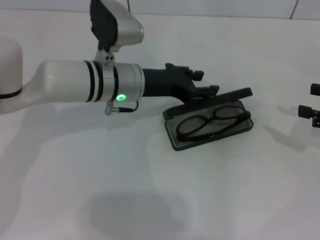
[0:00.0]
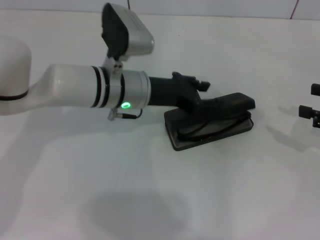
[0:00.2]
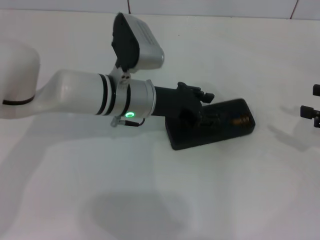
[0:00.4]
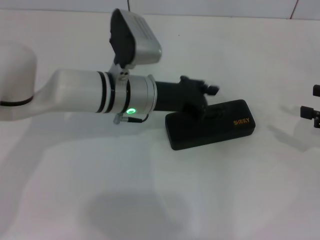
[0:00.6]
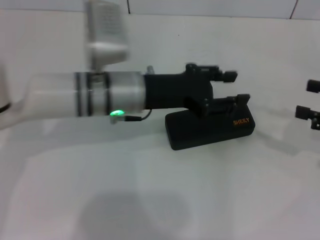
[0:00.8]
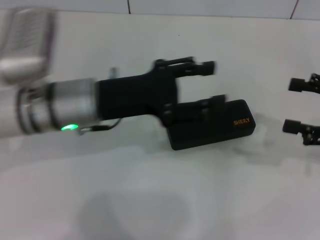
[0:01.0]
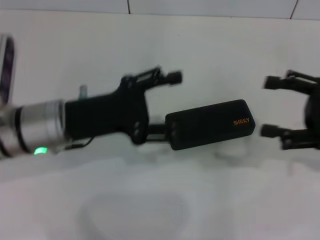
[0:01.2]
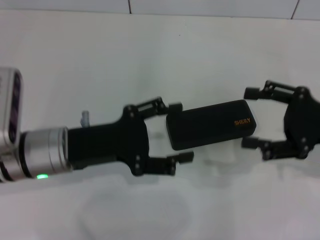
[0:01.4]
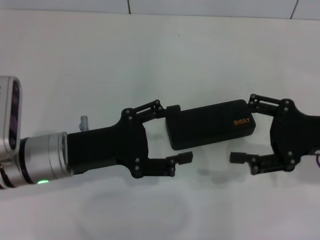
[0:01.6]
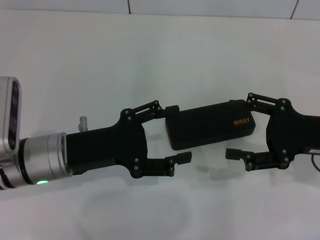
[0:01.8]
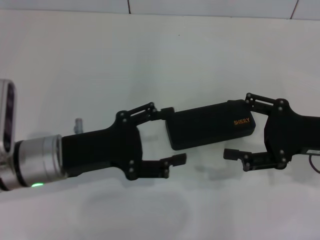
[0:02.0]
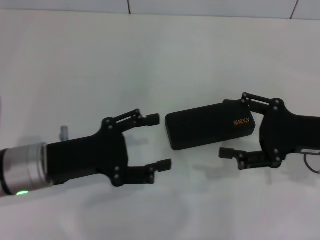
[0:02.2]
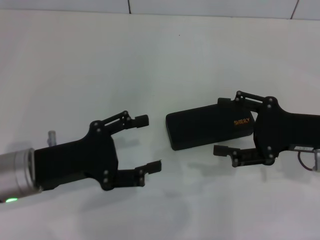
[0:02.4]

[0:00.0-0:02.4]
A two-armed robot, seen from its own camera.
0.0 to 1.2 s: The left gripper shifts some 15 cm backward and to the left, while the right gripper heads to the left, covering roughly 5 cm.
1.2 to 2.4 s: The right gripper travels to the left by some 5 cm, while the left gripper shifts by about 5 cm.

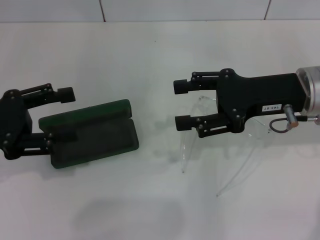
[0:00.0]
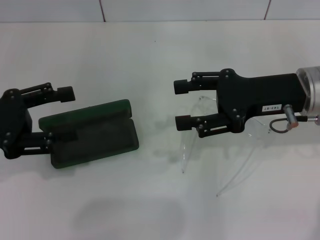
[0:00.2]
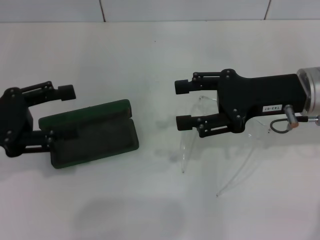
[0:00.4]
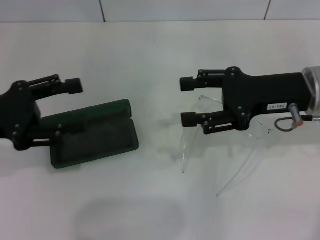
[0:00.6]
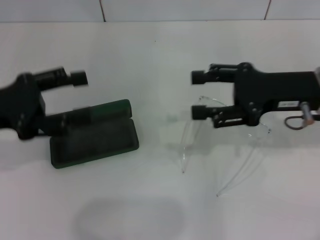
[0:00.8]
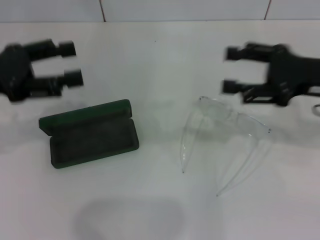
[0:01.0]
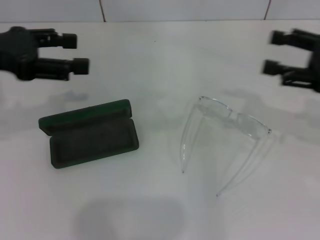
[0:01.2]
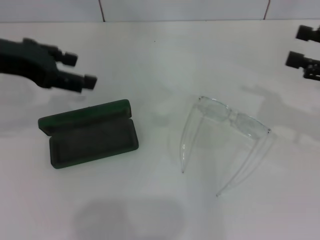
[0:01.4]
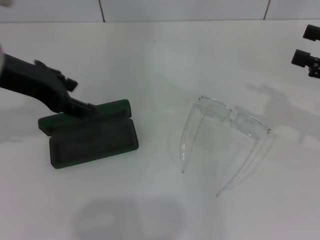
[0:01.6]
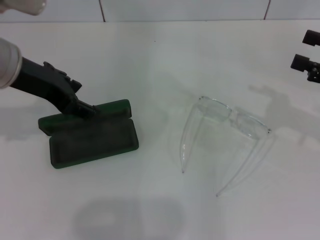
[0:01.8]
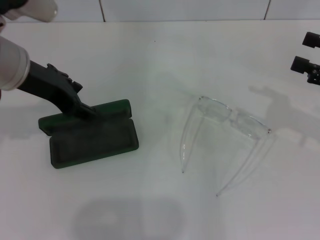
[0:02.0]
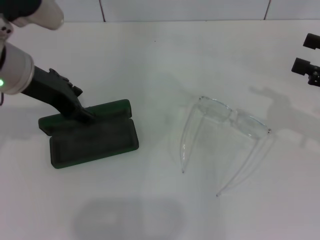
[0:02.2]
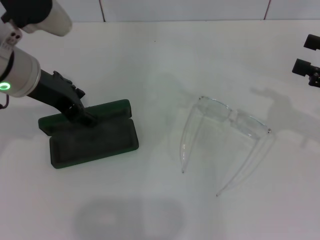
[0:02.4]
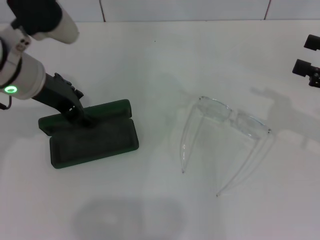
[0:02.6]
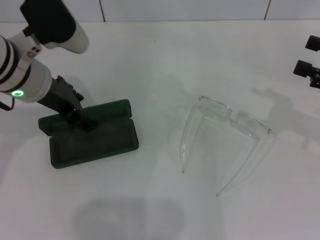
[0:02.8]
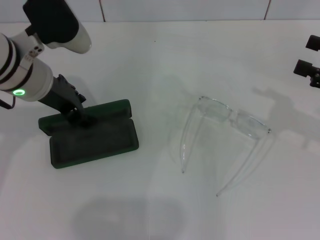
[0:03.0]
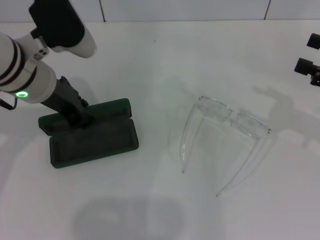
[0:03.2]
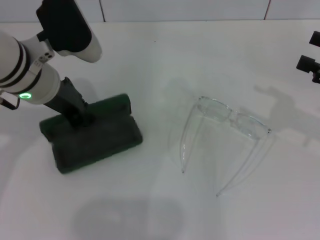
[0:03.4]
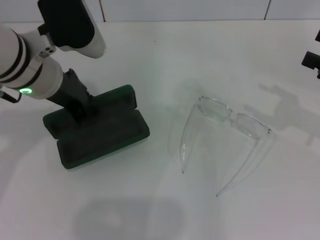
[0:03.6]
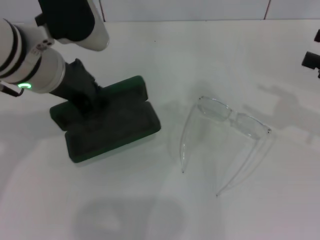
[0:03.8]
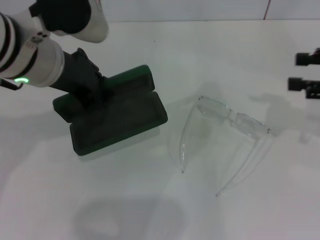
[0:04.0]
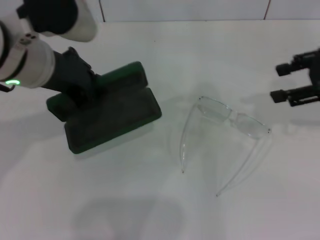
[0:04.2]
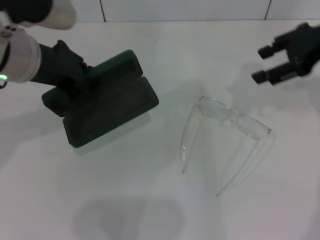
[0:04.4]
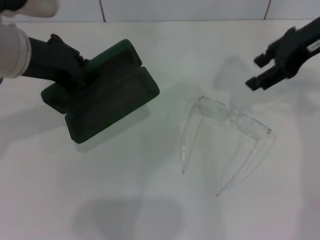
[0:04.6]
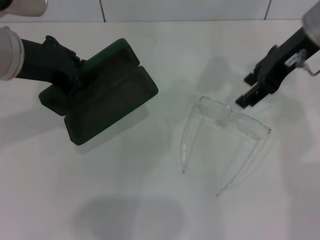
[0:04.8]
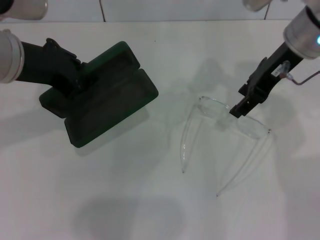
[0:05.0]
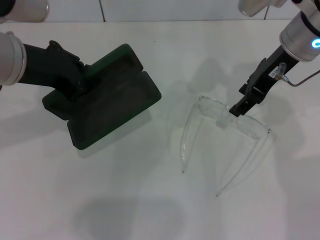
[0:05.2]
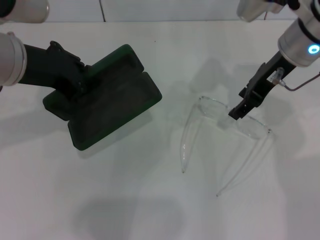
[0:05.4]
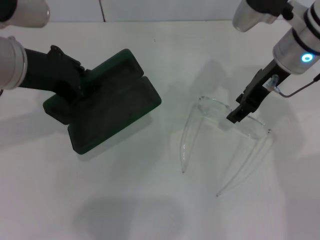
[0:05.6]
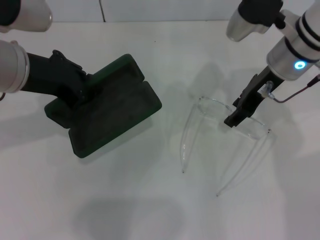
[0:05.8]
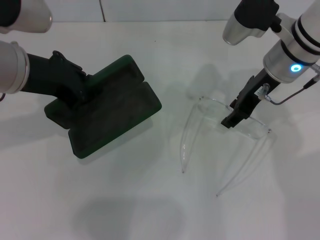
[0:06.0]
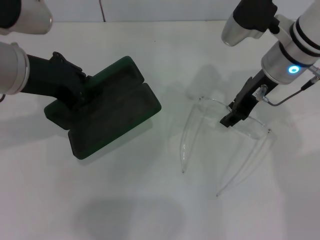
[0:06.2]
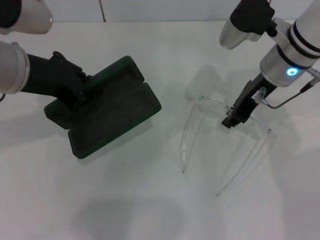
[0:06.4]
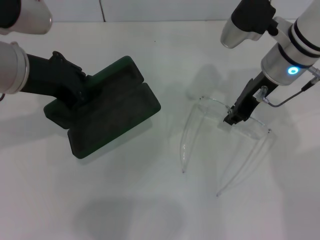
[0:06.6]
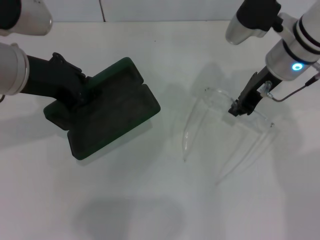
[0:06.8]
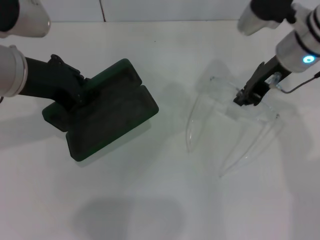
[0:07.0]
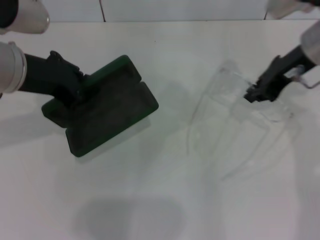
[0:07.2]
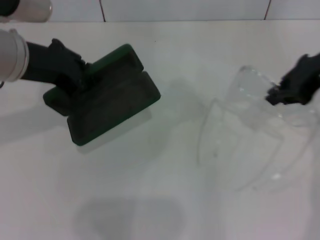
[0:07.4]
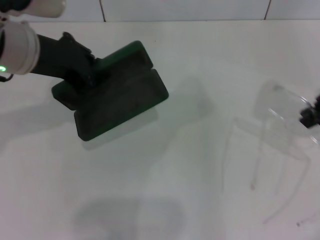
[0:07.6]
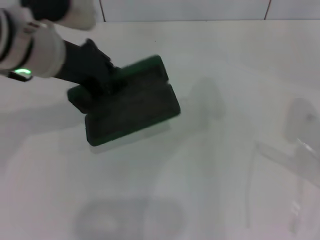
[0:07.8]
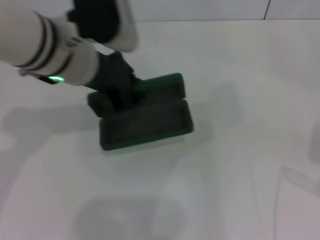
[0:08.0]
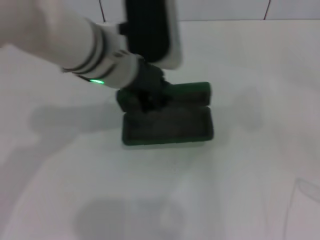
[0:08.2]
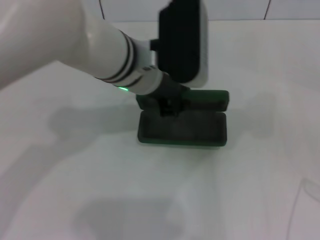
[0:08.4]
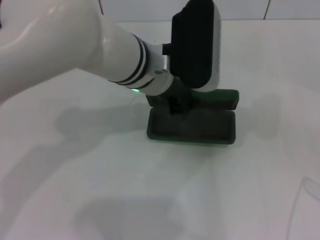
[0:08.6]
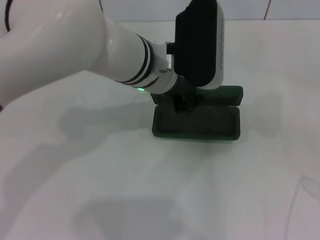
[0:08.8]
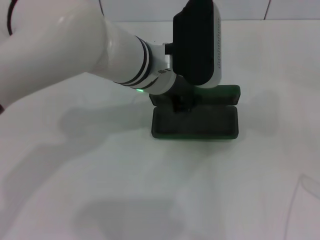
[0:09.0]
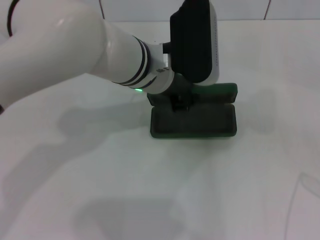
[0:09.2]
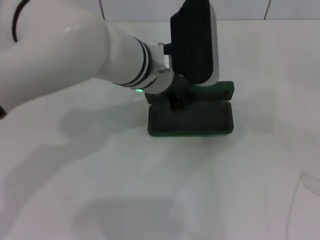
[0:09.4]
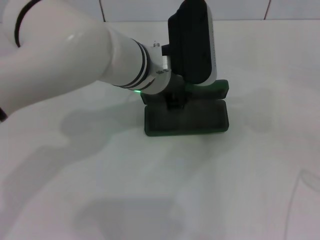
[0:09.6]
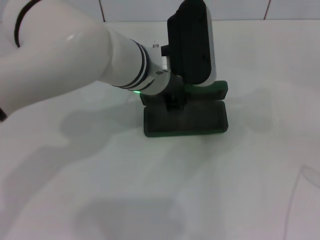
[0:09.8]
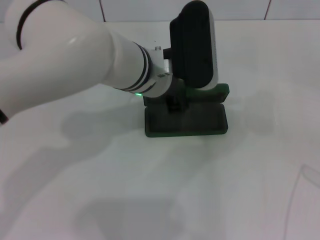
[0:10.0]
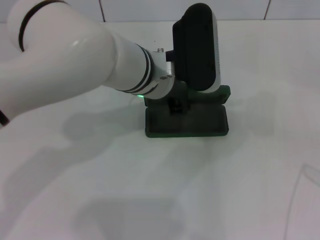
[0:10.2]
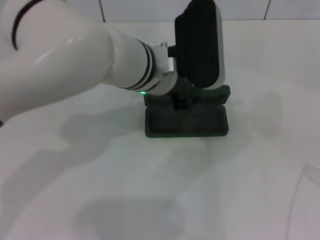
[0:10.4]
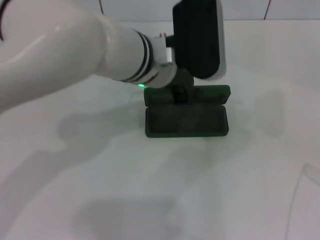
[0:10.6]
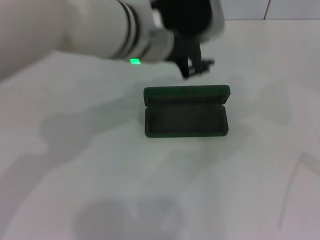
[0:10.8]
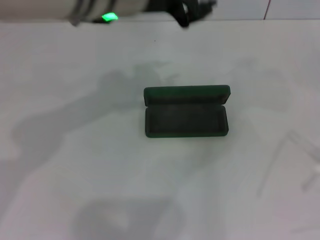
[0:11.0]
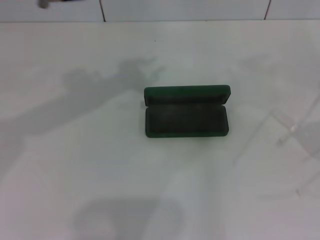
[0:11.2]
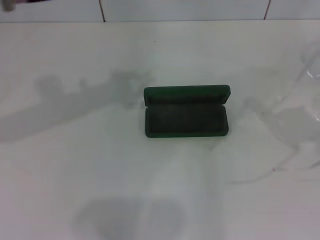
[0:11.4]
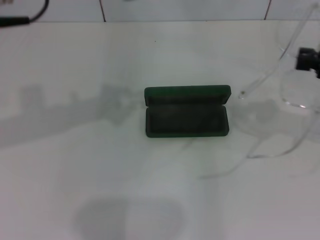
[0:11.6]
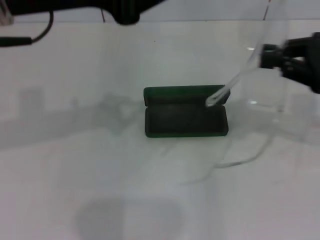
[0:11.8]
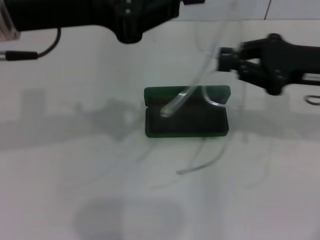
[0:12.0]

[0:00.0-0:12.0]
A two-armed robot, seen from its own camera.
Step, 0.0 to 3.0 s: Grab the glasses case with your left hand.
Step, 3.4 to 6.4 s: Grab the eyeglass frame with your right hand.
Step, 6.8 to 10.2 s: Place the glasses case in the center of the table with your left hand.
0.0 to 1.6 s: The right gripper is displaced to the right by about 15 cm. The left gripper shifts some 15 cm to the right, upward and forward.
1.6 to 3.0 s: The left gripper is displaced downward by roughly 5 cm.
3.0 to 4.4 s: The right gripper shifts approximately 15 cm upward, to the left and forward. The left gripper goes some 5 cm upward, and closes up.
4.4 to 6.0 s: The right gripper moves to the left and downward, about 15 cm.
6.0 to 7.6 s: The right gripper heads to the right, backward and upward, covering some 15 cm, and closes its fingers.
7.6 to 9.0 s: The right gripper travels to the right, backward and downward by roughly 15 cm. The left gripper is displaced to the right and downward by about 15 cm.
9.0 to 10.4 s: The grippers move only a little.
10.4 to 12.0 s: The left gripper goes approximately 20 cm to the left, upward and backward, while the right gripper moves to the left and forward, approximately 20 cm.

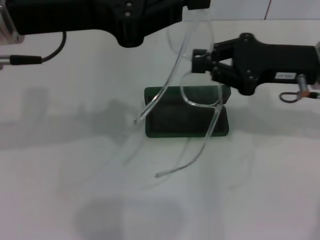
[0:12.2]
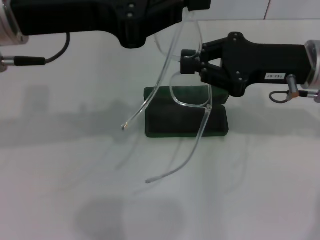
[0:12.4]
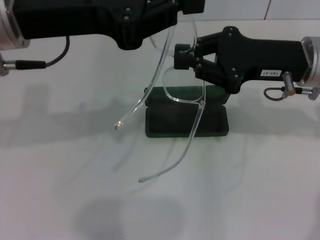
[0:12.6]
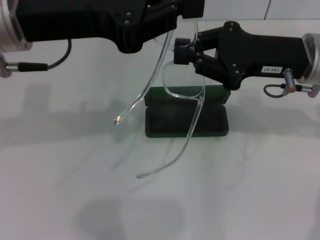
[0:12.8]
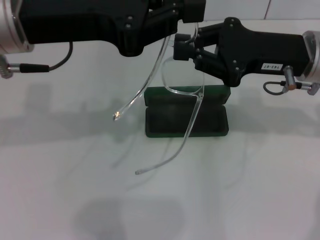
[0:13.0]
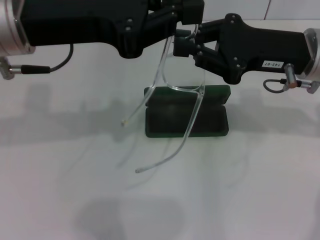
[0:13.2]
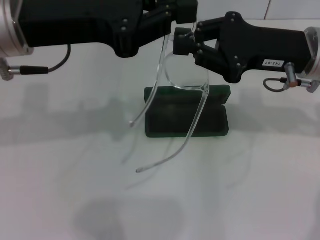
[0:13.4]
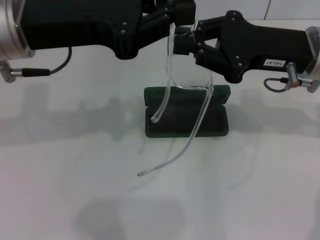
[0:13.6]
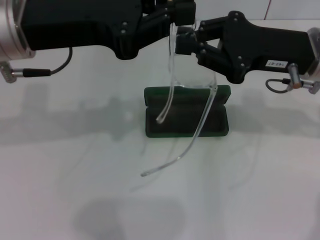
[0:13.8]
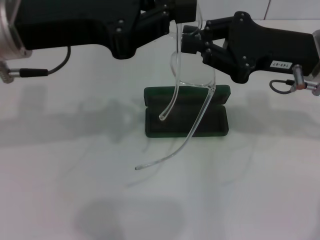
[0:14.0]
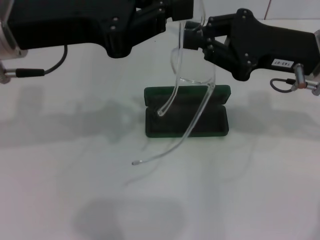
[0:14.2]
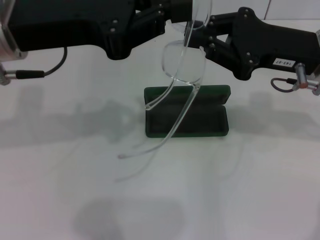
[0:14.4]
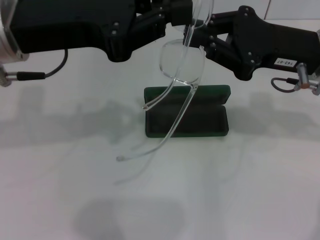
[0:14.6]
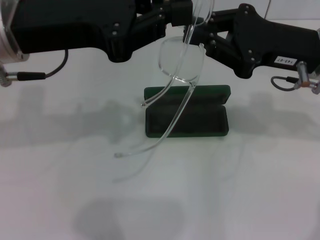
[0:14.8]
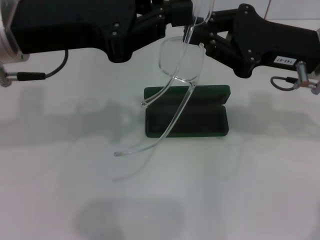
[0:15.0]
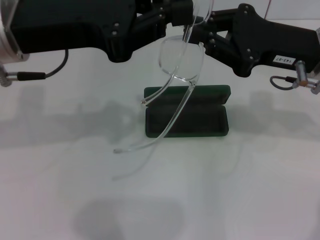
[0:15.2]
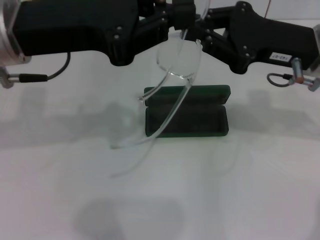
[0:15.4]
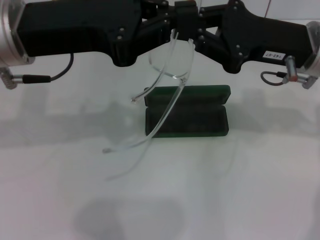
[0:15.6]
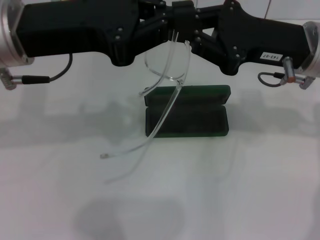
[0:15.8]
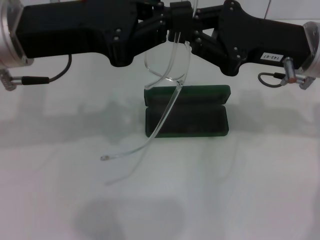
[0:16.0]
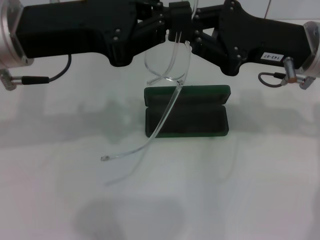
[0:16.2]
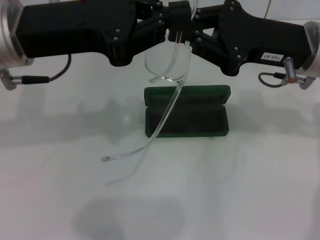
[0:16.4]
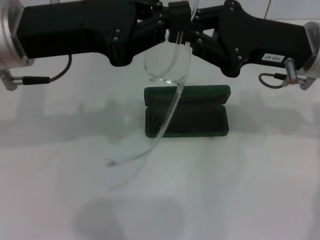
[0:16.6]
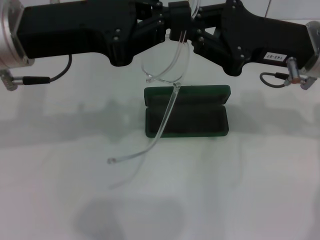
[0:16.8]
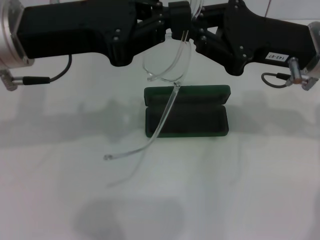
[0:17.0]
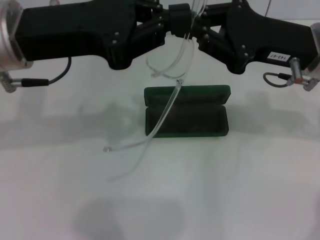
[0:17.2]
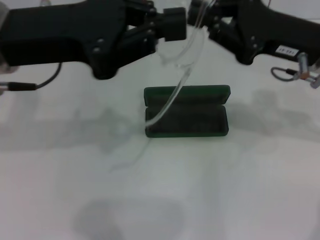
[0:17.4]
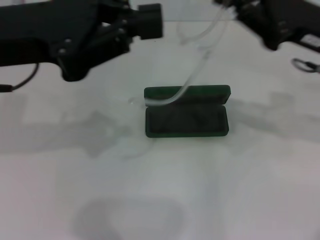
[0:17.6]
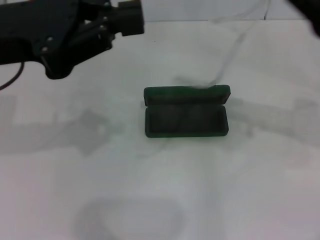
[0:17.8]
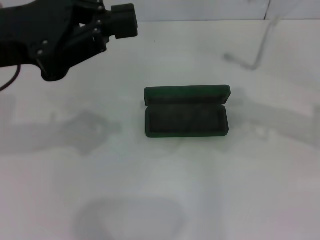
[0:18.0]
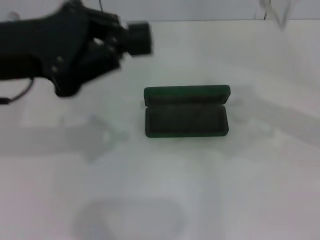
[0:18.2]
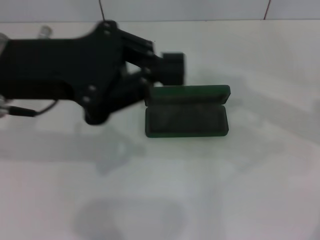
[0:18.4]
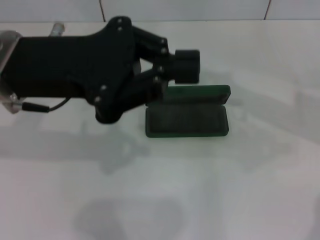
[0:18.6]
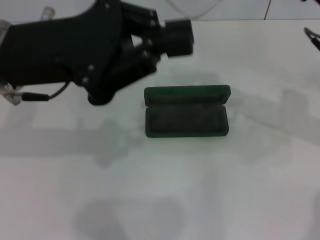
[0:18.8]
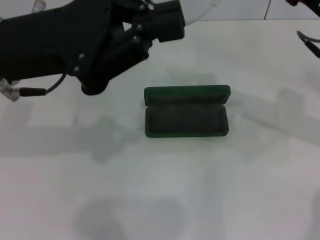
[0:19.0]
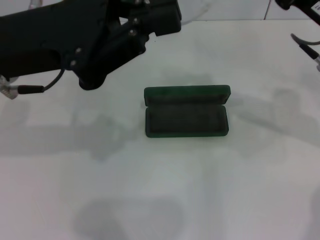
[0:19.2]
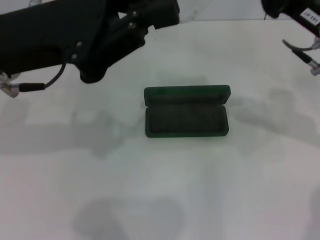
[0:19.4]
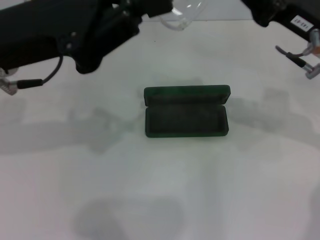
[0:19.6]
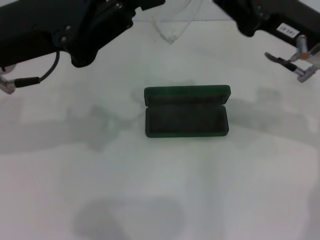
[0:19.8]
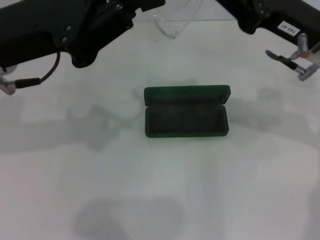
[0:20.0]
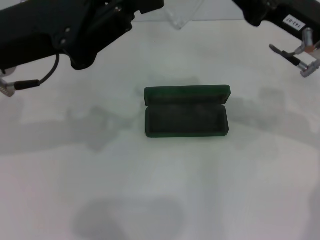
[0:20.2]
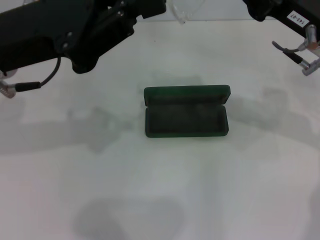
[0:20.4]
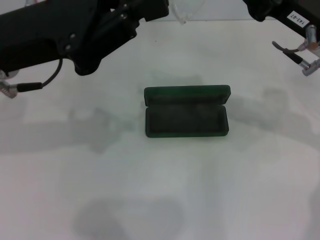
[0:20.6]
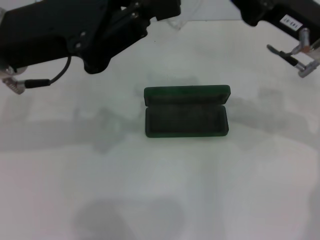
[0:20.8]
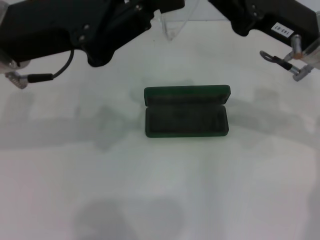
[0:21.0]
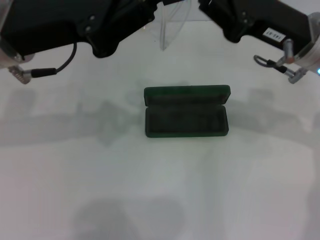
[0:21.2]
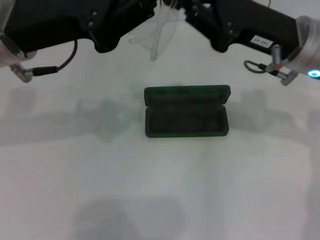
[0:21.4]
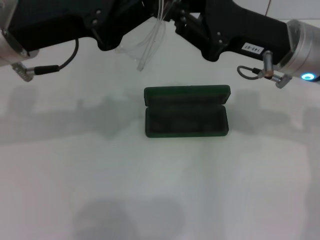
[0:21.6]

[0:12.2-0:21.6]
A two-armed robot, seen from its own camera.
12.2 to 13.8 s: The grippers stay close to where they were, moving slightly.
13.8 to 15.4 s: Neither gripper changes place.
15.4 to 17.0 s: The two grippers keep their place.
17.0 to 18.4 s: The right gripper travels to the right by about 10 cm.
18.4 to 20.0 s: The right gripper travels to the left by some 5 cm.
20.0 to 21.6 s: The grippers make only small movements.
